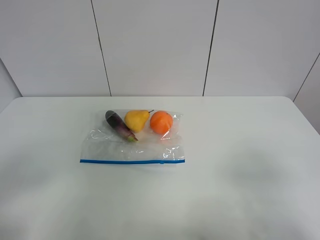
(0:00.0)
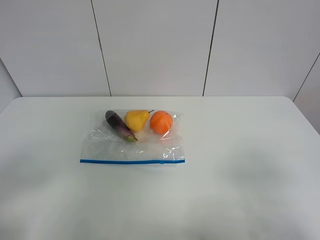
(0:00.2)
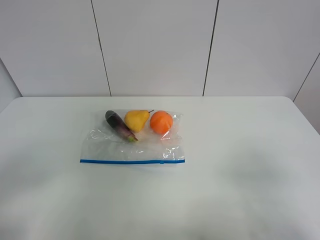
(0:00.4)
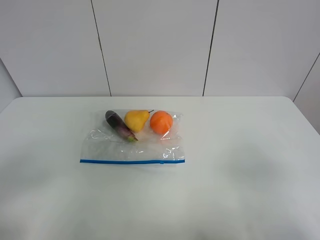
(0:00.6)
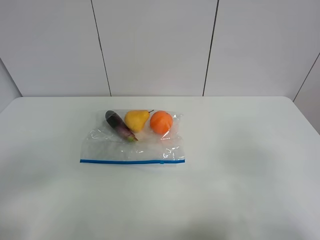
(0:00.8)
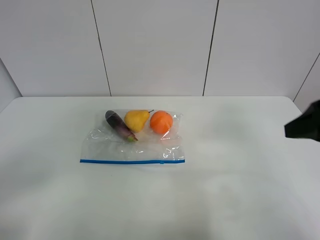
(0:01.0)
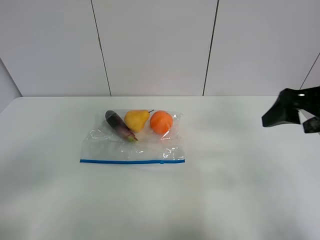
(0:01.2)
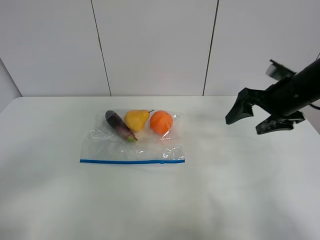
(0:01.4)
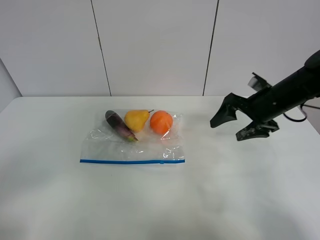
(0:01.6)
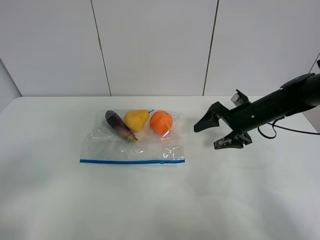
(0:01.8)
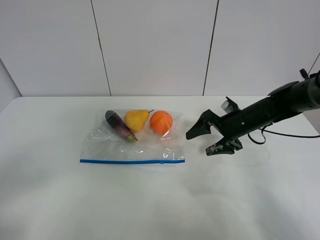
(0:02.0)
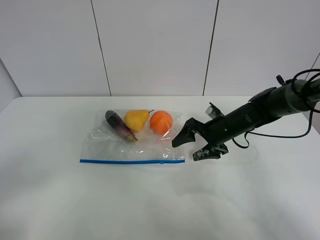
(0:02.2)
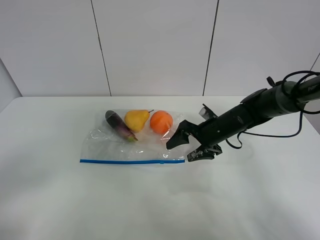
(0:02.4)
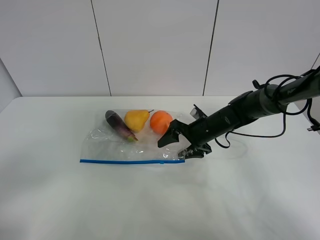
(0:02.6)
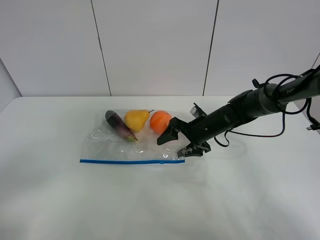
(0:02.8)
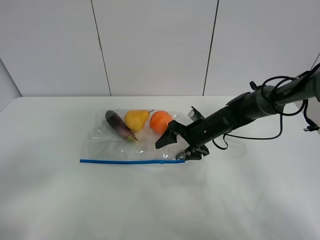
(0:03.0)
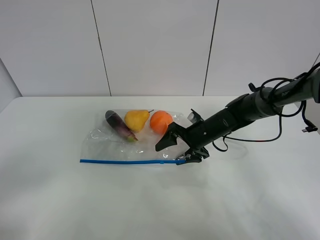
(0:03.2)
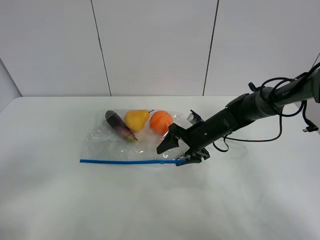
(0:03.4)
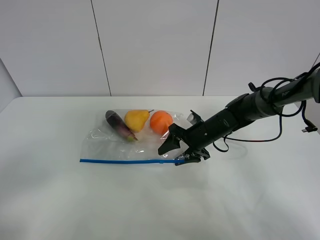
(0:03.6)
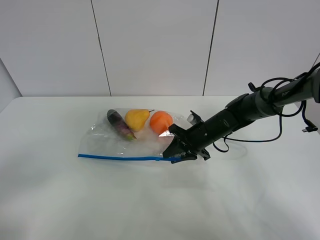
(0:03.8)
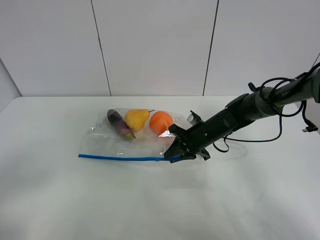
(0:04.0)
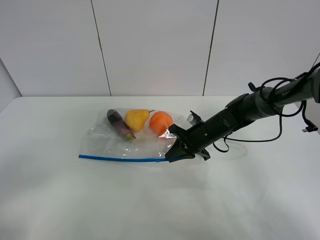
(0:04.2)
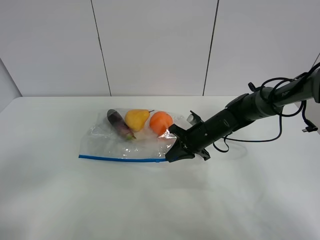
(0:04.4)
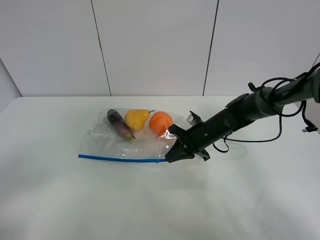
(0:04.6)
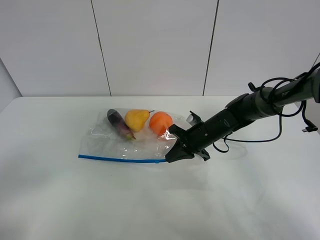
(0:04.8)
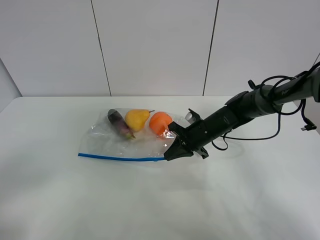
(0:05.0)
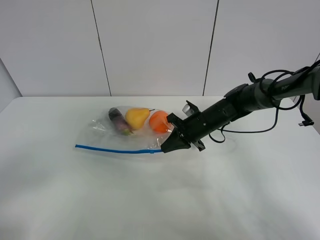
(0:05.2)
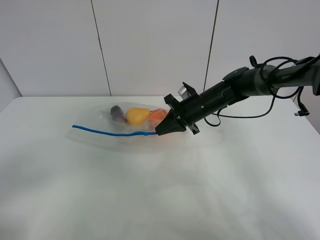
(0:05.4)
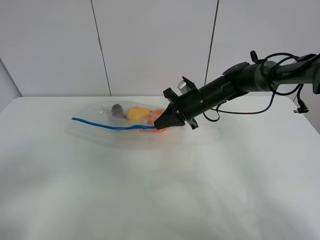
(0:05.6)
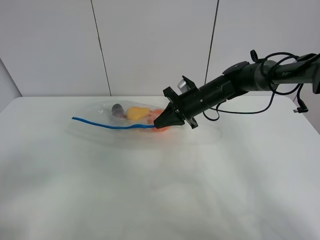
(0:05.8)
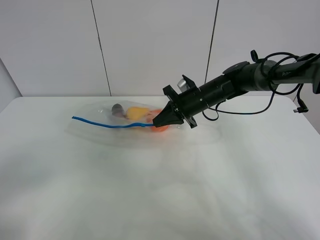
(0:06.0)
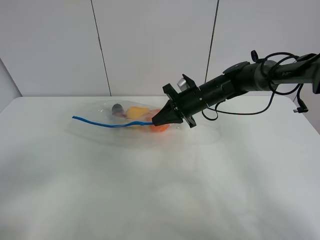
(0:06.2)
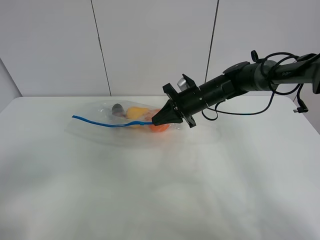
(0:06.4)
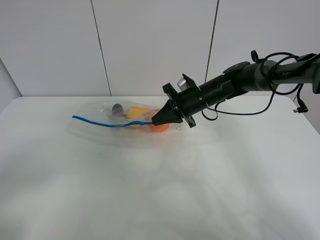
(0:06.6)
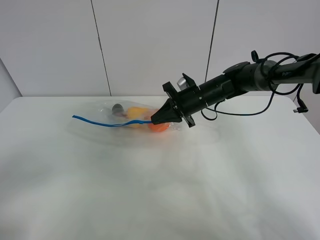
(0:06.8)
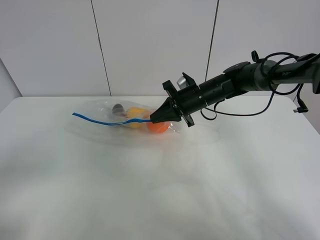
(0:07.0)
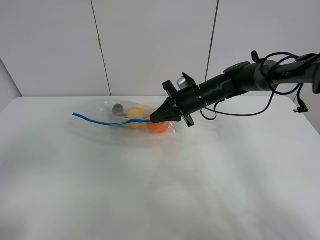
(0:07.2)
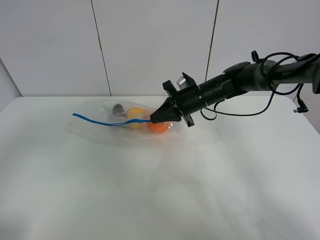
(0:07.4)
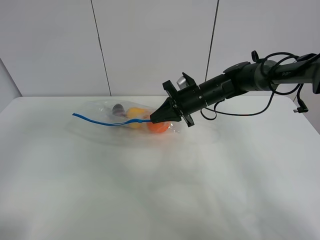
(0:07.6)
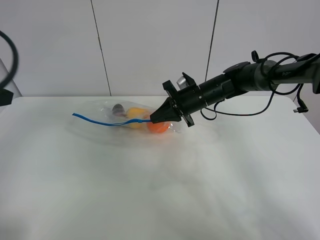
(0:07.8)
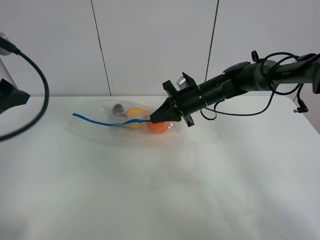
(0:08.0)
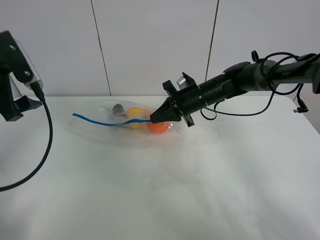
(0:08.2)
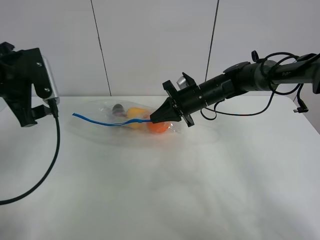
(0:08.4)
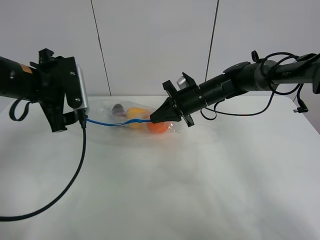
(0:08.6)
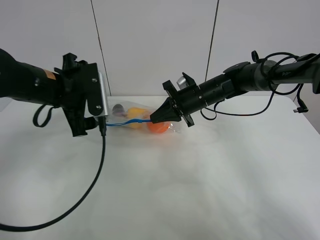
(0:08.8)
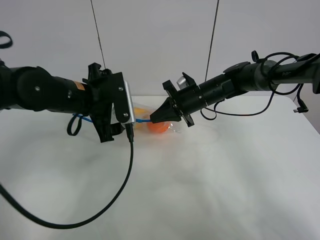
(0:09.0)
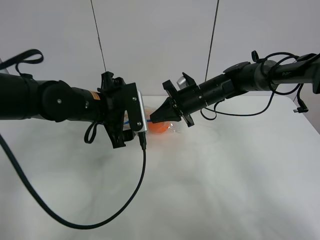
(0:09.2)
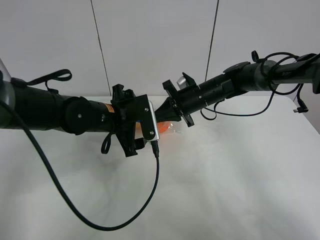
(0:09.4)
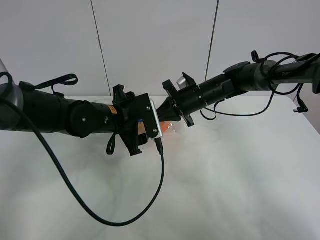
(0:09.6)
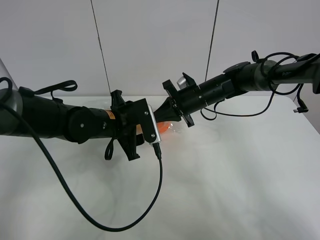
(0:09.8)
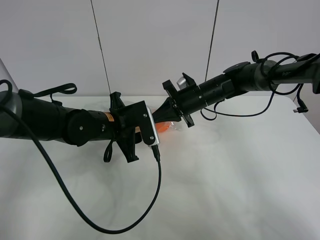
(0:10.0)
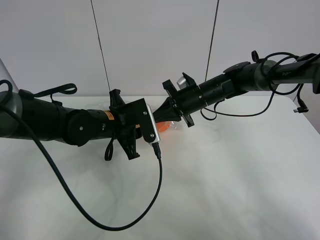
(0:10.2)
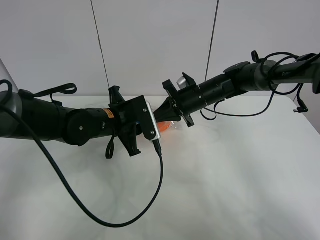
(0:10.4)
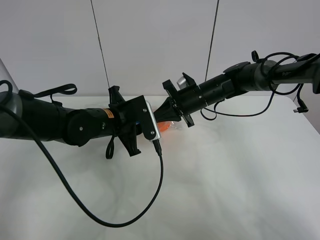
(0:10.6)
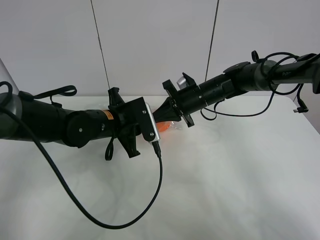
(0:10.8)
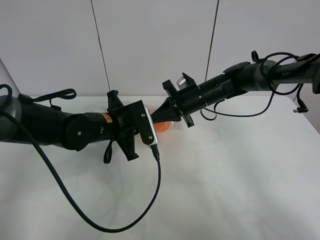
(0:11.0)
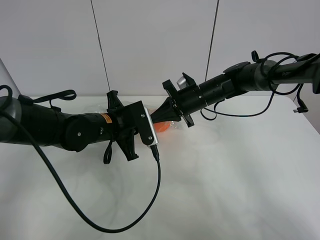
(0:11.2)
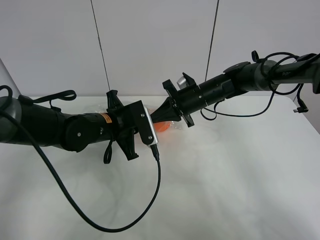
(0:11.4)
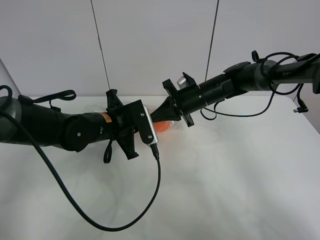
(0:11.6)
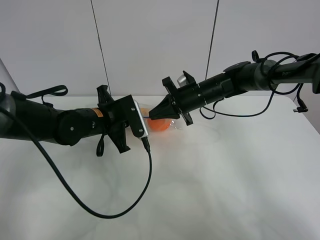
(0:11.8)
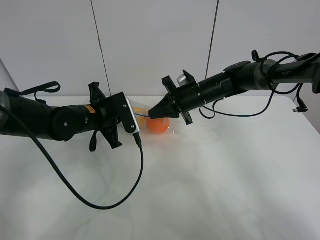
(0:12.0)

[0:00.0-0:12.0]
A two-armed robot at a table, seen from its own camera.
Step, 0:00.0 to 0:04.4: Grasp the fruit bag with right gripper.
Step, 0:04.6 to 0:06.2: Lift the fruit bag with your right gripper.
0:00.0 to 0:01.6: The right gripper shifts roughly 35 cm forward.
0:01.6 to 0:03.0: The right gripper heads to the left and downward, covering roughly 15 cm.
0:03.0 to 0:04.4: The right gripper closes up.
0:04.4 to 0:06.0: The right gripper moves upward, some 5 cm.
0:06.0 to 0:07.6: The left gripper travels forward and upward by some 15 cm.
0:07.6 to 0:09.0: The left gripper travels forward, to the right and downward by approximately 30 cm.
0:09.0 to 0:10.4: The left gripper is displaced downward by roughly 5 cm, and closes up.
0:10.4 to 0:12.0: The left gripper travels to the left by some 5 cm, and closes its fingers.

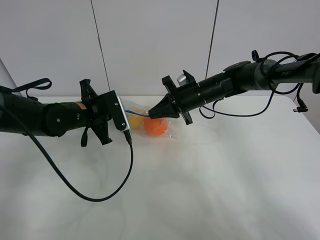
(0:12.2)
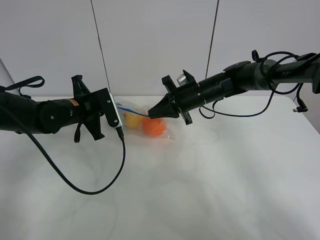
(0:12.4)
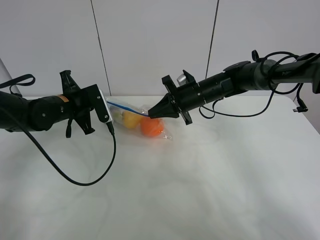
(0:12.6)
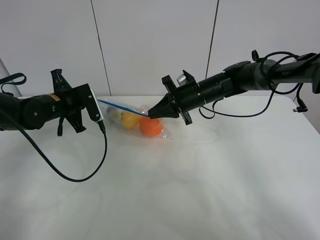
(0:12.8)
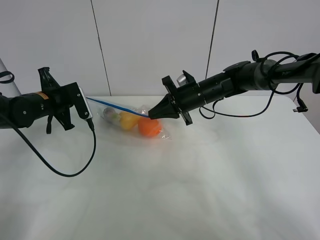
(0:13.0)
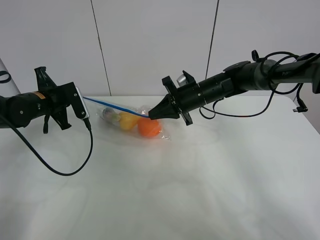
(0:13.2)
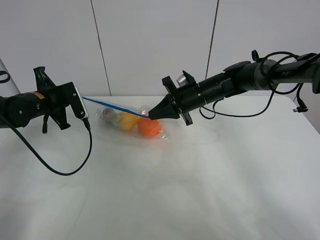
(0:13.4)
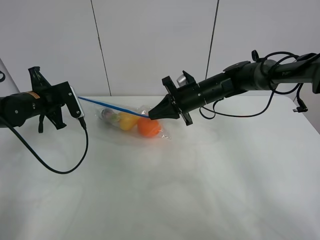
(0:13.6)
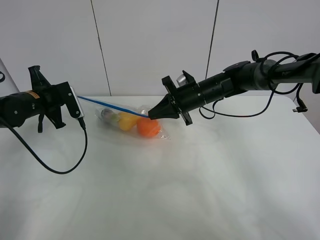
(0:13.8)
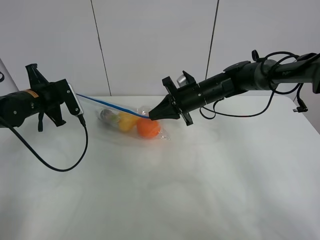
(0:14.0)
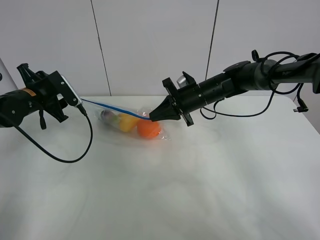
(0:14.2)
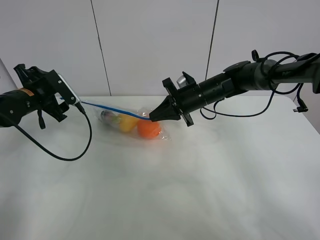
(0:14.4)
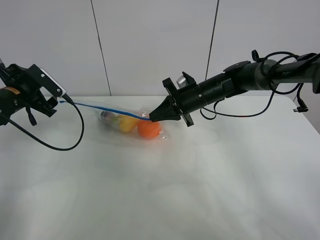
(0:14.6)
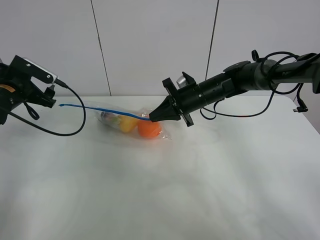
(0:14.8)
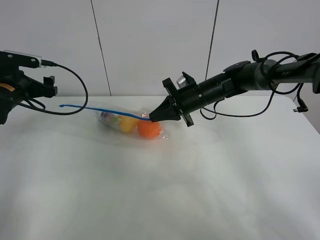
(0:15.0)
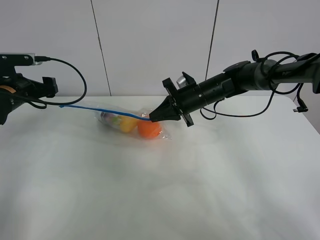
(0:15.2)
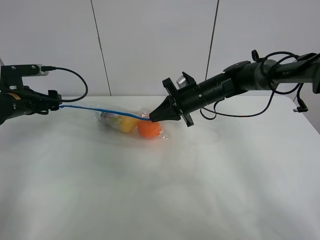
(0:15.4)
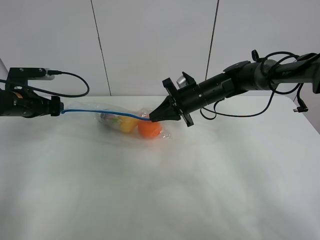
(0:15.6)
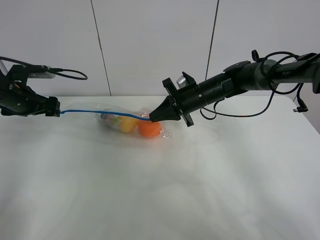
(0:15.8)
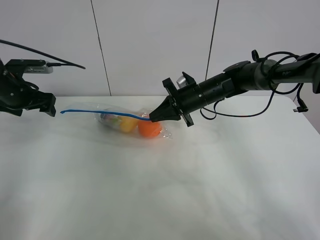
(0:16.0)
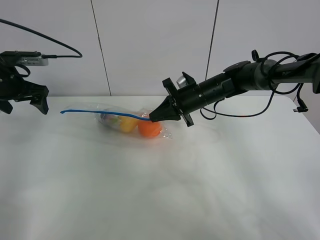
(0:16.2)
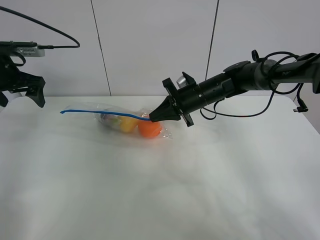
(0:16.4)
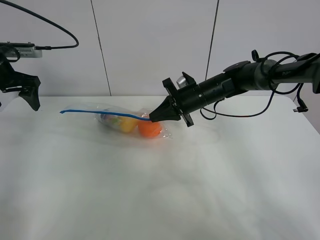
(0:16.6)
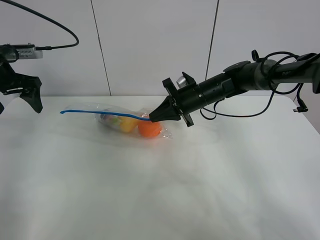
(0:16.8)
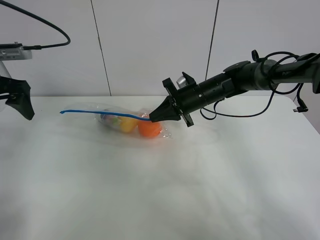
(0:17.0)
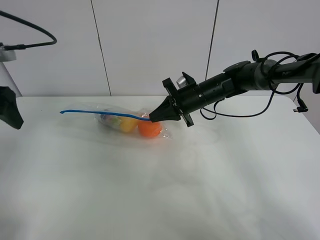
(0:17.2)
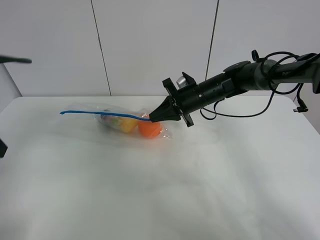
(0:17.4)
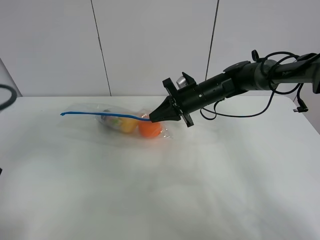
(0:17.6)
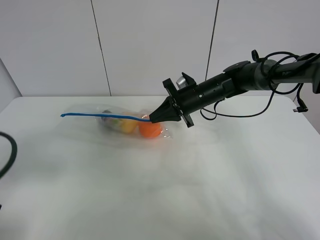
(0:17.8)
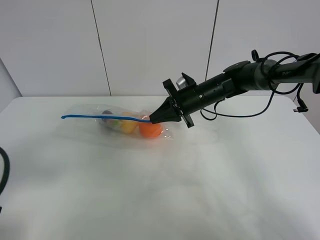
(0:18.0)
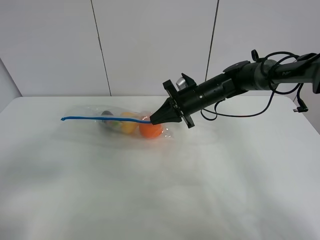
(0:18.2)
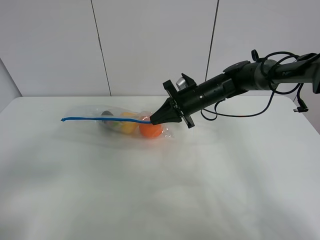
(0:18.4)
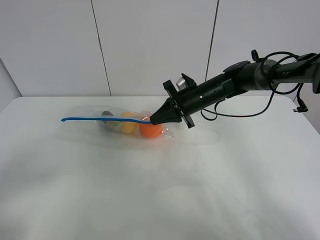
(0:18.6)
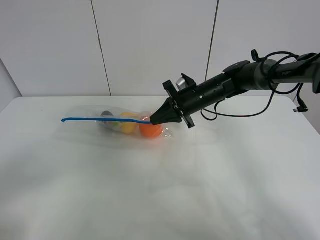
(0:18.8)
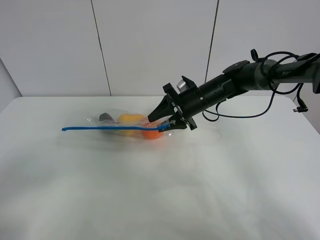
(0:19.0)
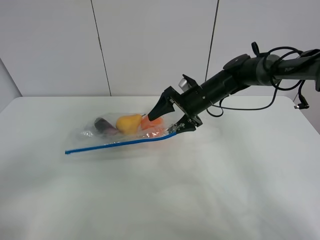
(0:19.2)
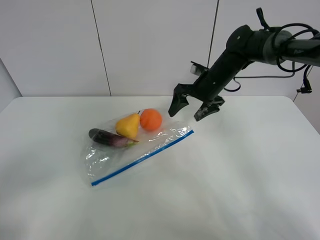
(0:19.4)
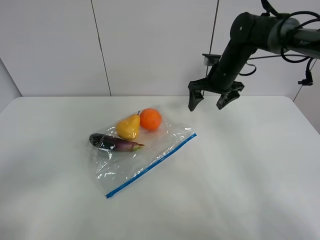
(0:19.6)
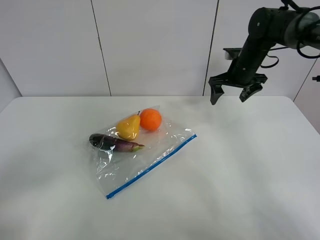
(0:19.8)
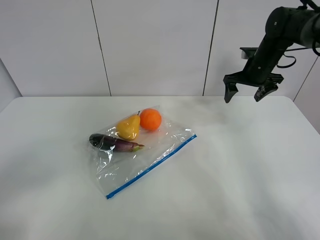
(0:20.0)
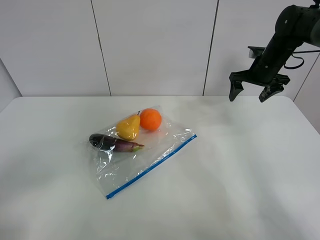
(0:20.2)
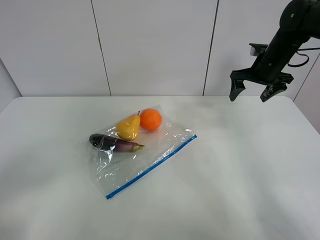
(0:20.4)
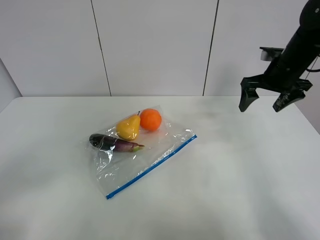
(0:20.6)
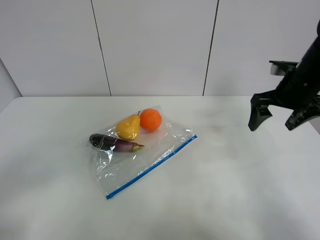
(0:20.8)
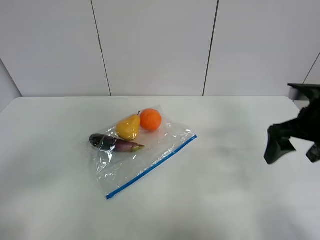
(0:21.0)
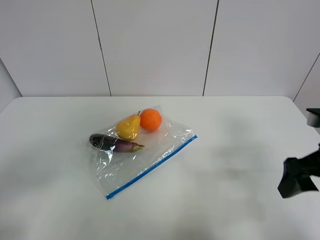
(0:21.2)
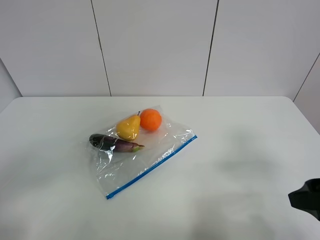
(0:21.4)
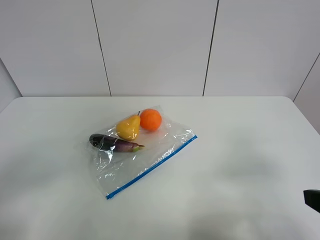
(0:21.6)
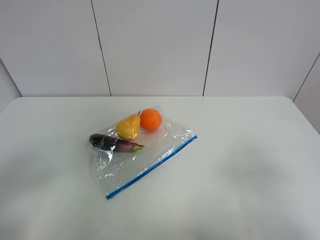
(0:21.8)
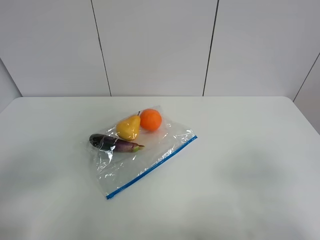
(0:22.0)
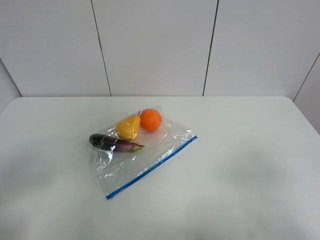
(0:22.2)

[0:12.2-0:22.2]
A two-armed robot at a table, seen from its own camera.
Step, 0:12.2 to 0:14.2: Pull the fruit bag with left gripper.
Step, 0:14.4 to 0:19.6: Place the fruit bag with right gripper.
0:12.2 to 0:13.6: The left gripper is displaced to the left by about 10 cm.
0:13.6 to 0:15.0: The left gripper ends up some 5 cm from where it was, and opens up.
0:15.0 to 0:16.4: The left gripper travels upward by approximately 10 cm.
0:16.4 to 0:18.0: The left gripper goes roughly 30 cm backward.
0:18.0 to 0:19.4: The right gripper ends up approximately 5 cm from where it was, and opens up; the left gripper travels backward by about 10 cm.
0:19.4 to 0:20.8: The right gripper heads backward, to the right and upward, covering about 20 cm.
0:20.8 to 0:22.2: The right gripper travels backward by some 30 cm.
